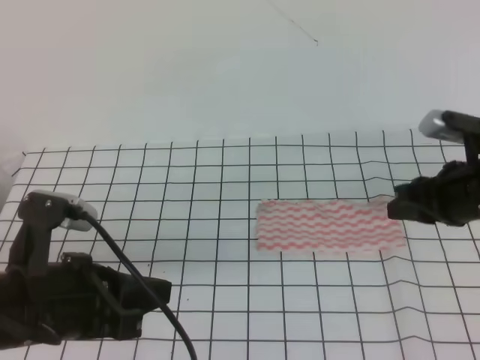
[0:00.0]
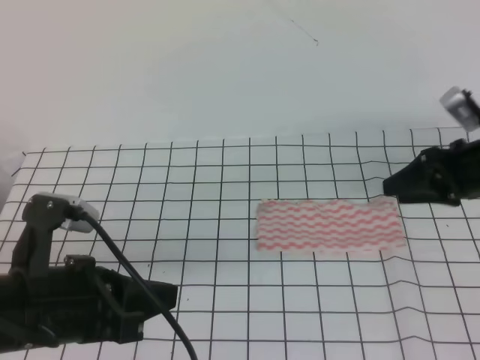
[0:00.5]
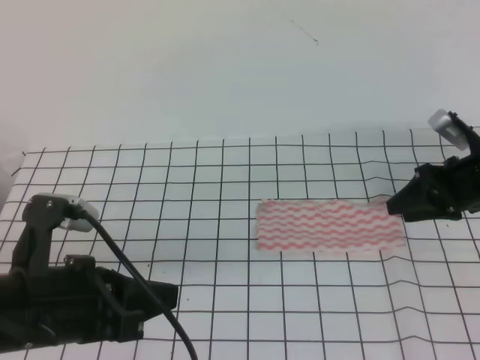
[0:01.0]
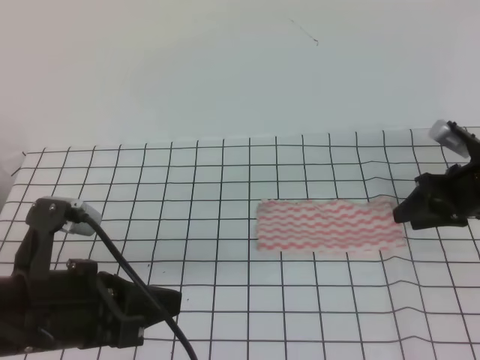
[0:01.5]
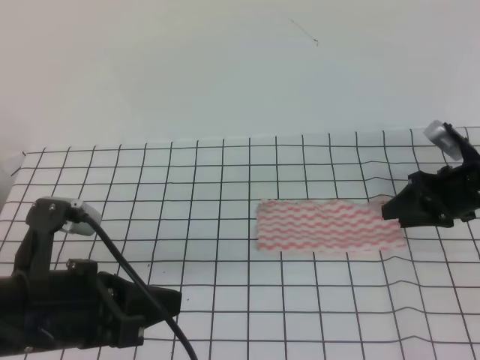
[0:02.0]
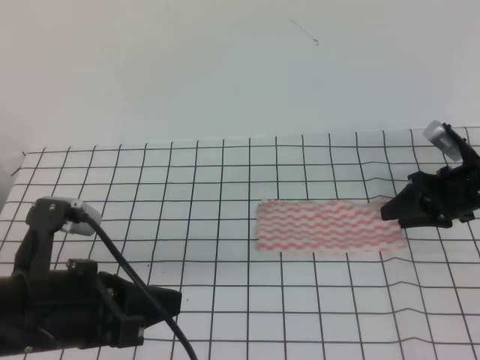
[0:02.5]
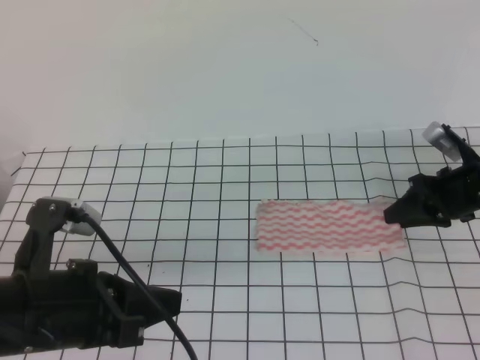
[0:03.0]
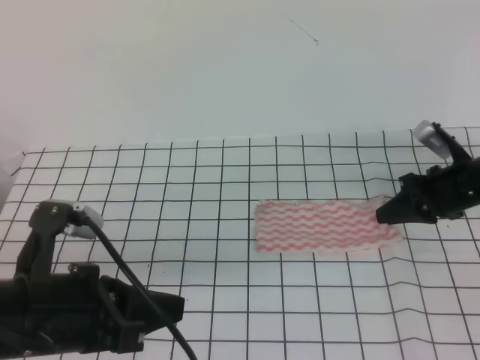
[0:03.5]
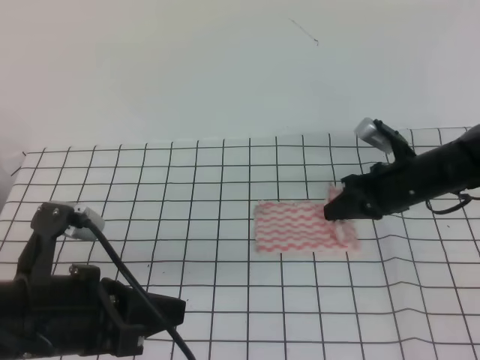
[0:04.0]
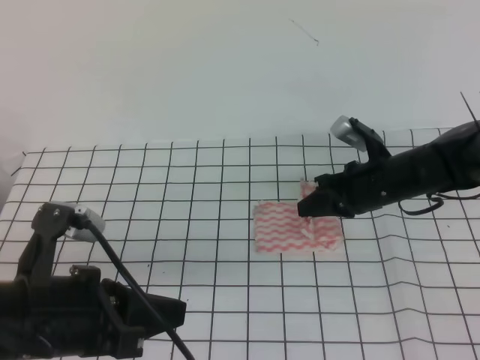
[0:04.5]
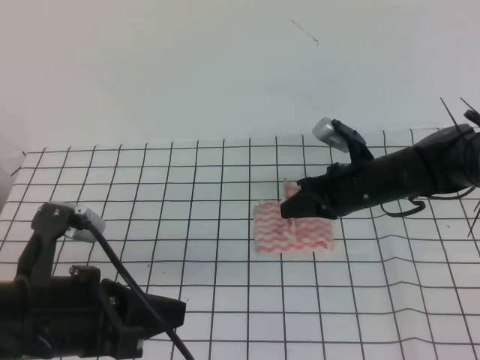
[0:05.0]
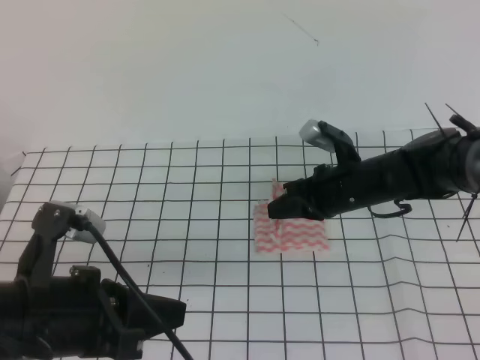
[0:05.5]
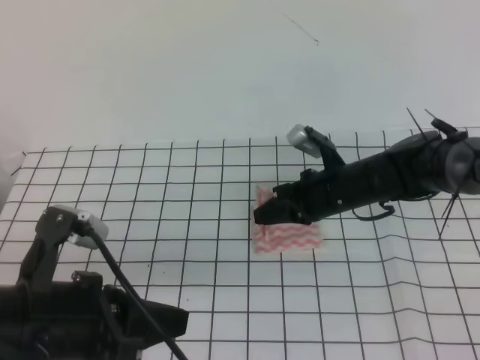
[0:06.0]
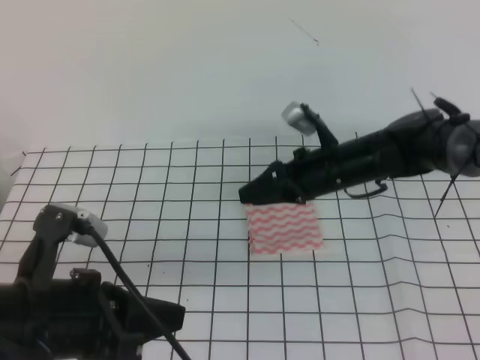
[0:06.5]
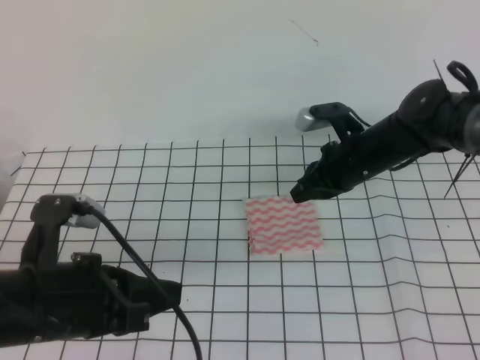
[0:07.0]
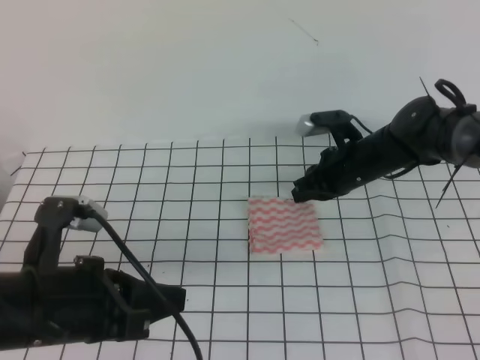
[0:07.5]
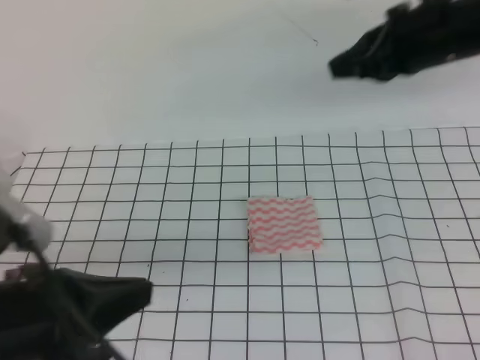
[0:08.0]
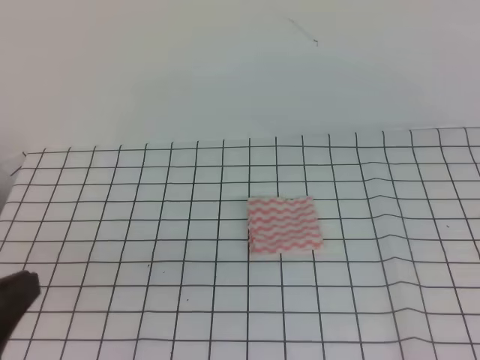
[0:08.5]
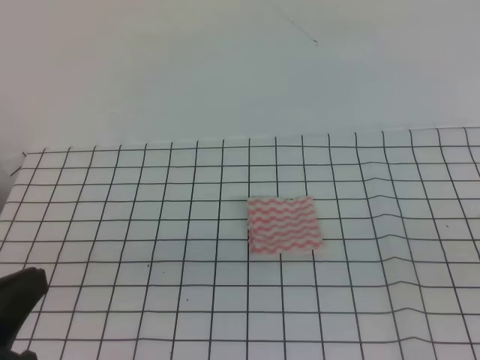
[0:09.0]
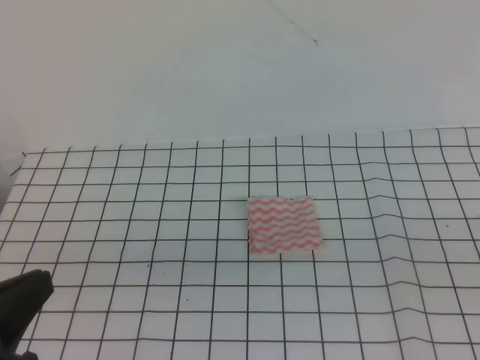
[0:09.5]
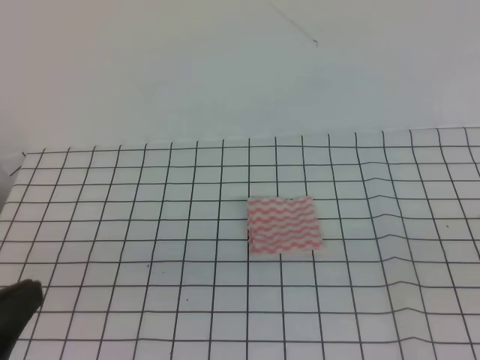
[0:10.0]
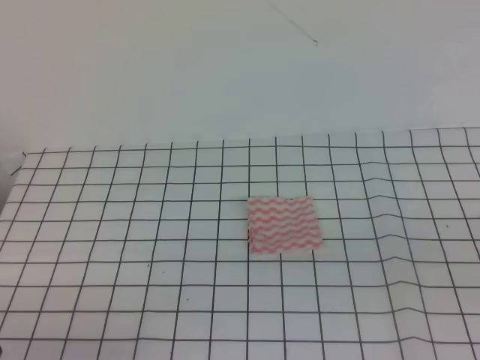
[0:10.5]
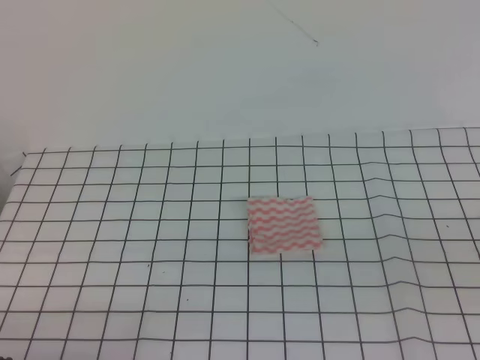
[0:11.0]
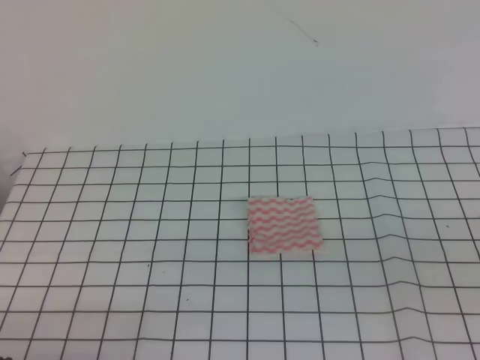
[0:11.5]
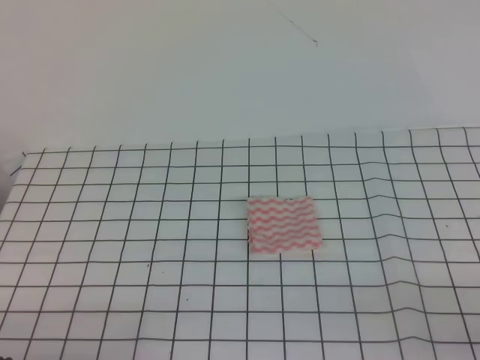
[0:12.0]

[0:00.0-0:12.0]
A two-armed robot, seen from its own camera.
Step, 0.0 to 12.0 s: Fold the towel.
0.0 to 2.0 s: The right gripper travels downward and forward by roughly 10 cm.
2.0 to 4.0 s: The right gripper shifts roughly 10 cm to the left, and closes up.
4.0 to 6.0 s: The right gripper is displaced to the left by about 10 cm.
6.0 to 8.0 s: The right gripper shifts roughly 25 cm upward, and opens, then closes once more.
8.0 to 10.0 s: The left gripper is displaced backward by roughly 5 cm; the right gripper travels backward by some 30 cm.
10.0 to 12.0 s: The left gripper is displaced downward by roughly 10 cm.

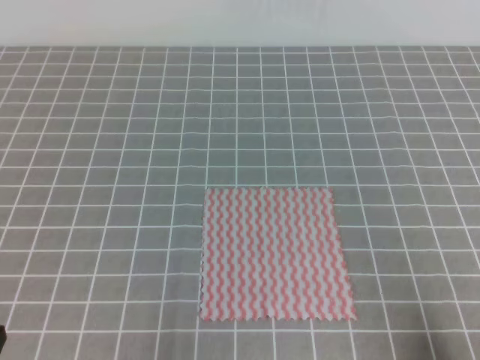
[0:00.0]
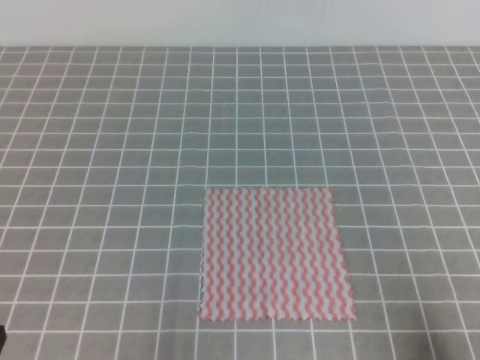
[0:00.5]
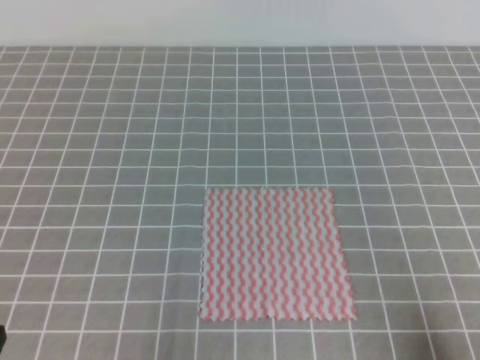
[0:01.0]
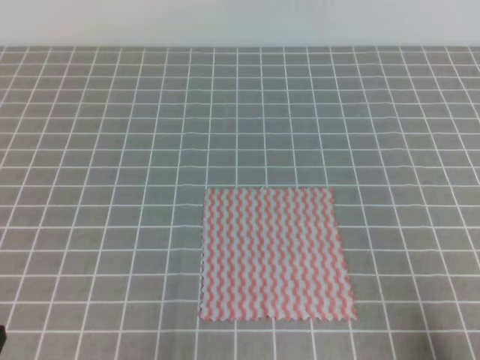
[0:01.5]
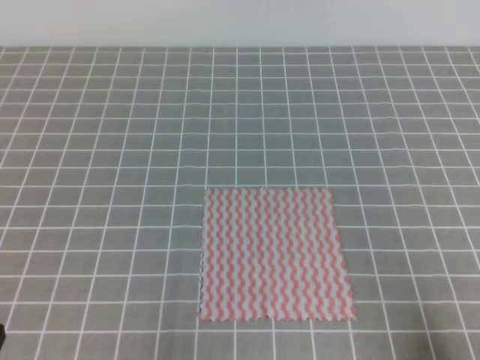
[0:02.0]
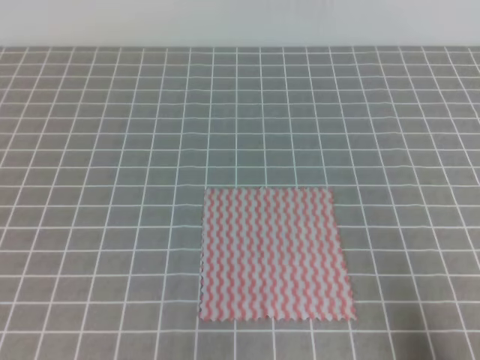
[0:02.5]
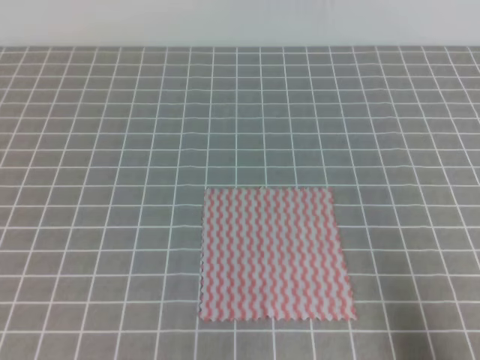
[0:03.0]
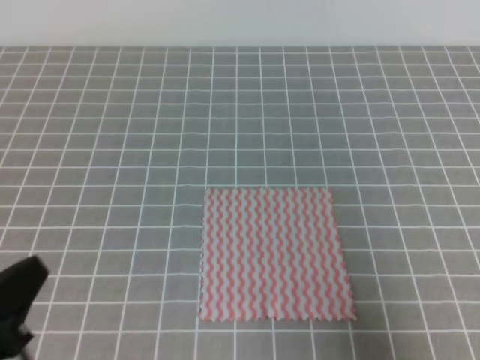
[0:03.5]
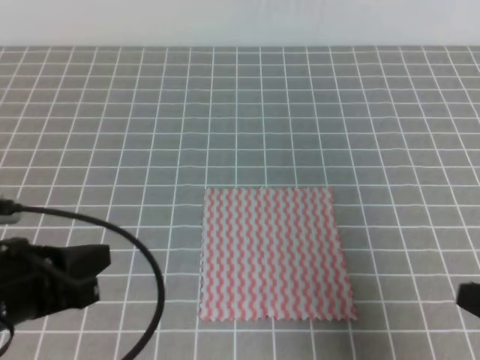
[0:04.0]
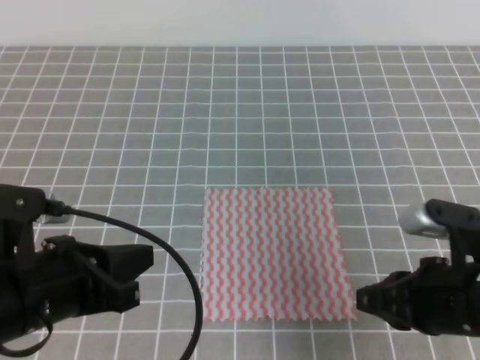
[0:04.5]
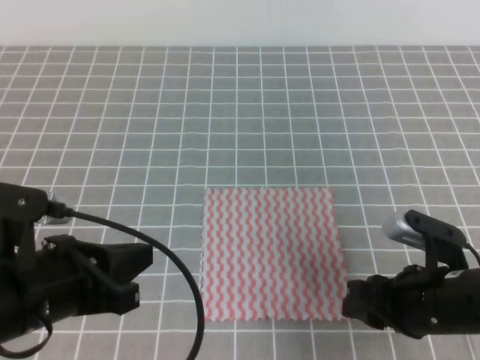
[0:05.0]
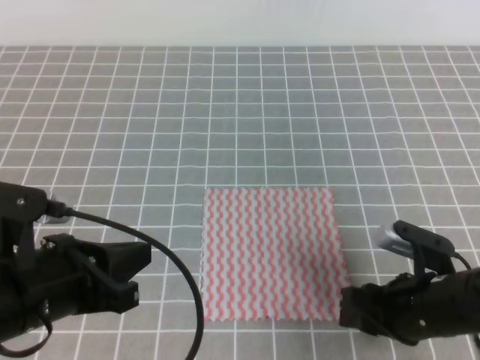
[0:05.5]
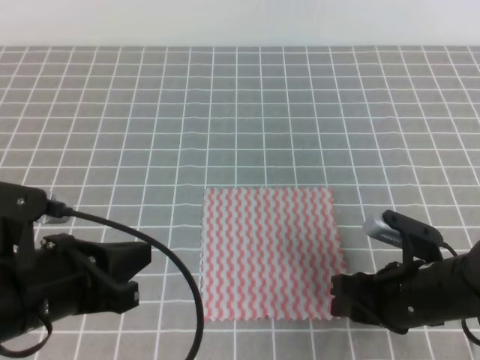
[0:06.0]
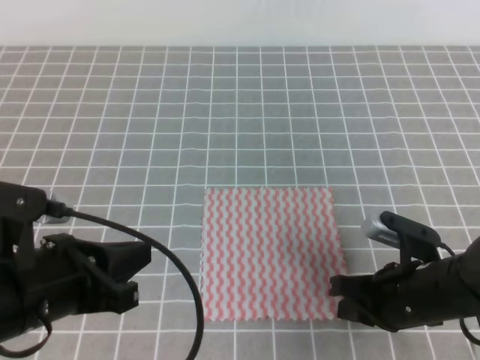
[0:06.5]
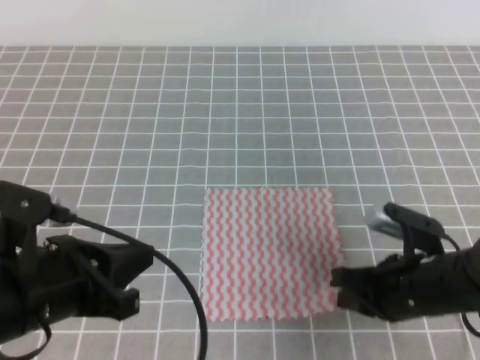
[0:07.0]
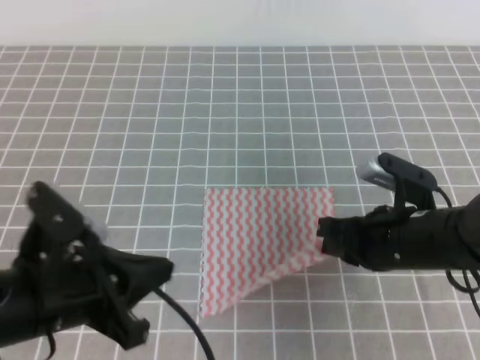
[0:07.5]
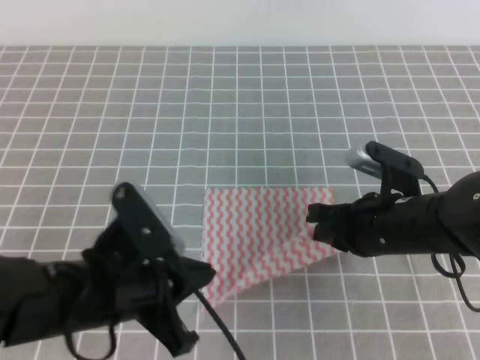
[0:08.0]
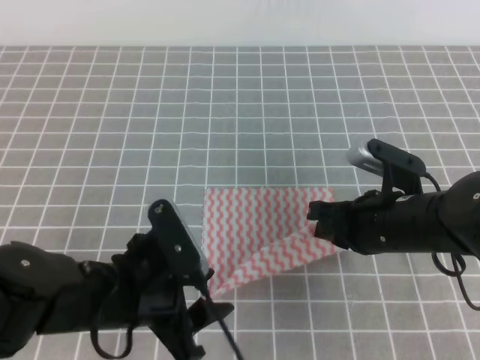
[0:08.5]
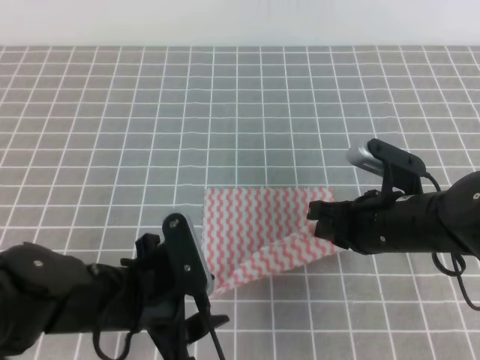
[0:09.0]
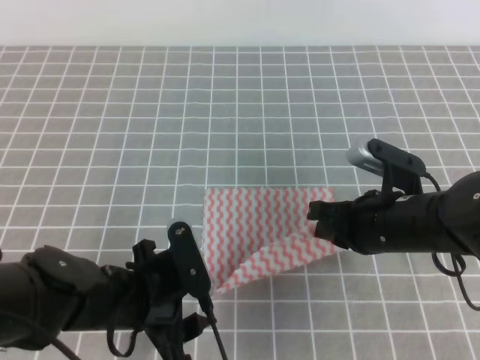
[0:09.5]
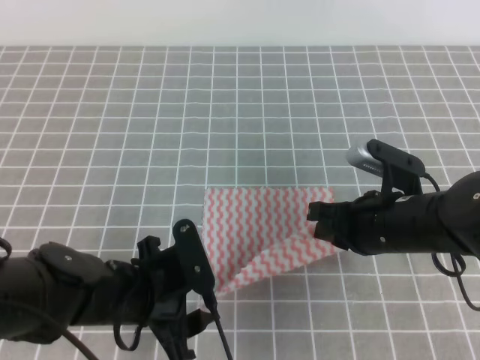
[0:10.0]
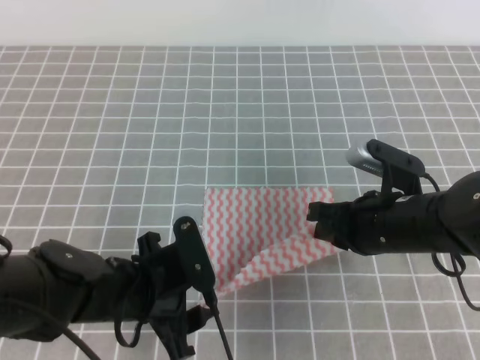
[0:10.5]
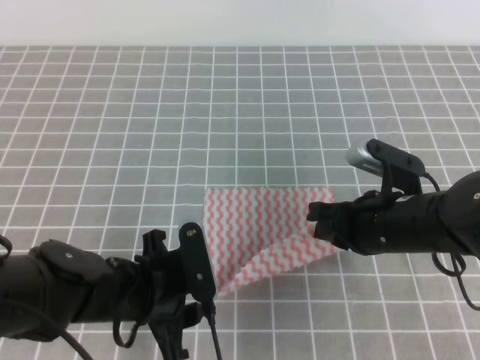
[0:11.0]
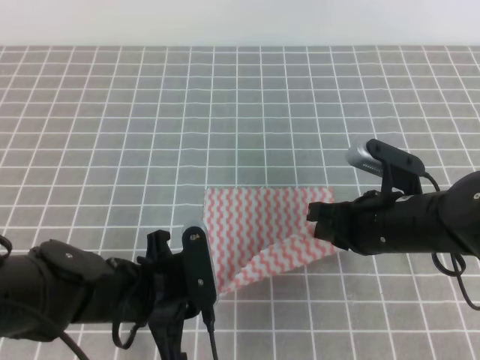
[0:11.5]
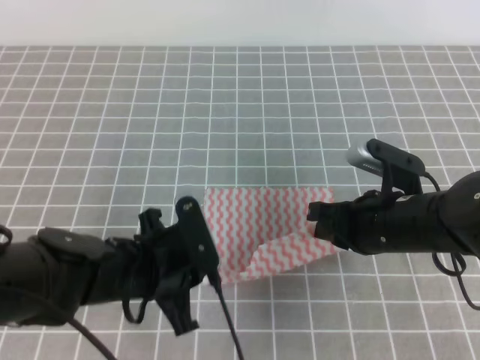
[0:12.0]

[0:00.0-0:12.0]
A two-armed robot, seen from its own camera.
0.0 to 2.0 s: Both grippers stay put.
2.0 to 4.0 s: The right gripper goes approximately 10 cm forward and upward. The left gripper shifts approximately 15 cm forward, upward and to the right.
4.0 to 6.0 s: The right gripper is displaced to the left, downward and forward by about 15 cm, and opens.
6.0 to 8.0 s: The left gripper moves to the right, approximately 5 cm, while the right gripper moves forward, about 5 cm, and closes up.
8.0 to 10.0 s: The left gripper goes some 5 cm downward, and opens.
10.0 to 12.0 s: The left gripper closes up.

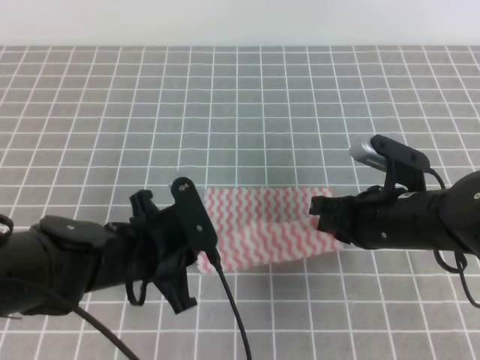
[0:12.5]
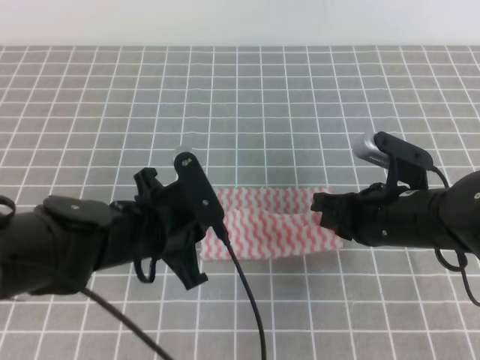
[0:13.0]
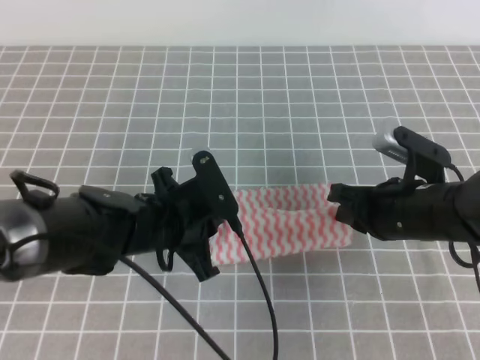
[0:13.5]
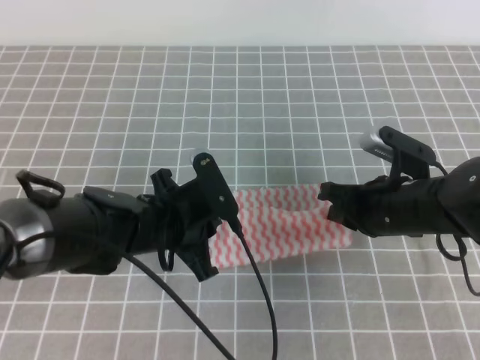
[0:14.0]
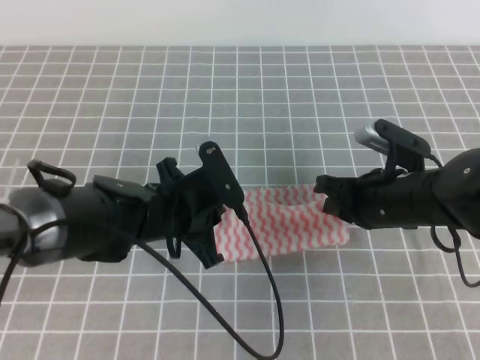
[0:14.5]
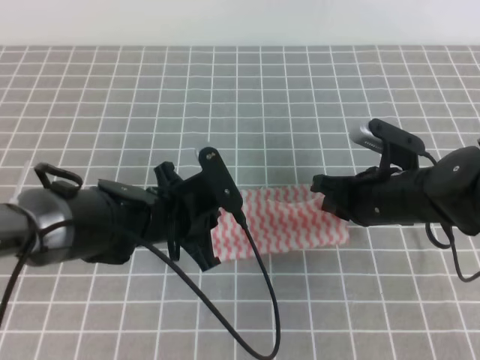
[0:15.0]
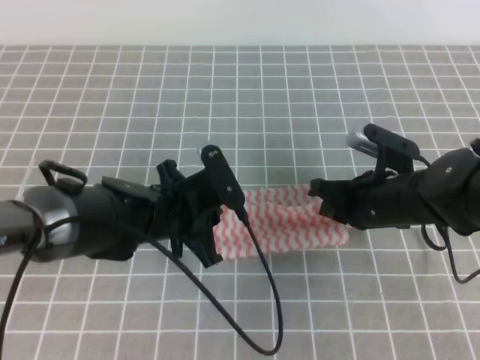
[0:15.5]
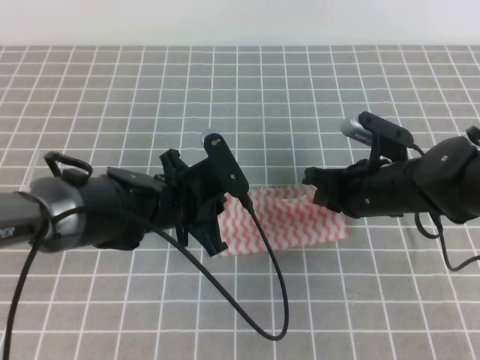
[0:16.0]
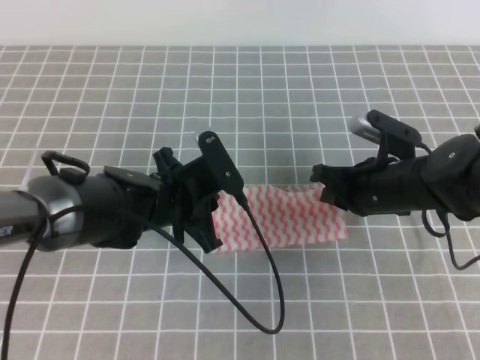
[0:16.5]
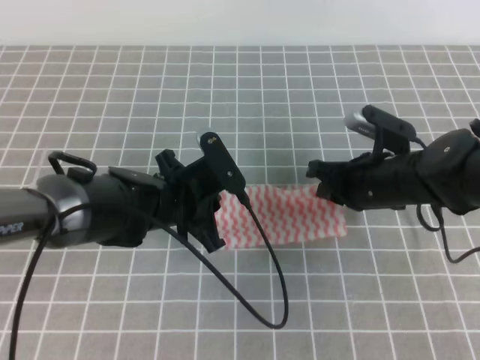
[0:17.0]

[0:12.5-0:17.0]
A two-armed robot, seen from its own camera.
12.5 to 14.5 s: The left gripper travels forward by some 5 cm.
14.5 to 17.0 s: There are only small adjustments of the grippers.
